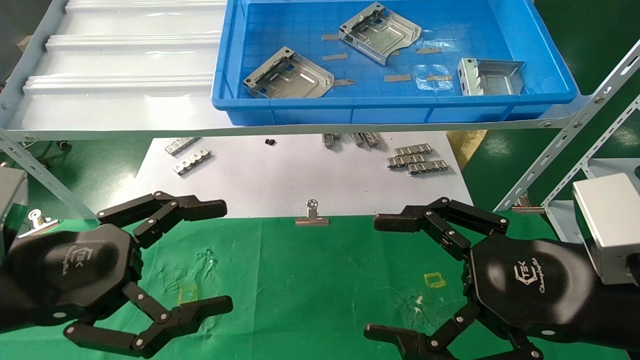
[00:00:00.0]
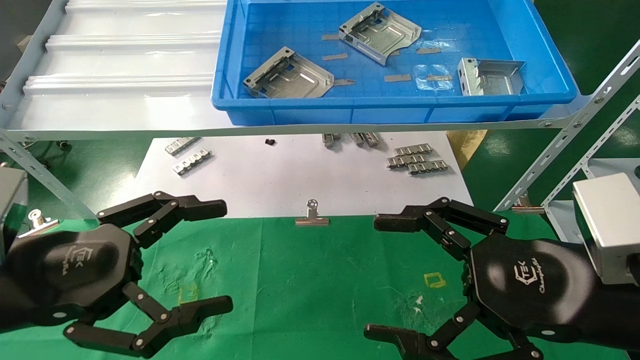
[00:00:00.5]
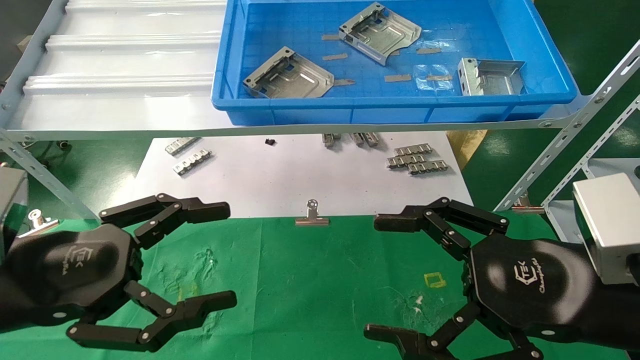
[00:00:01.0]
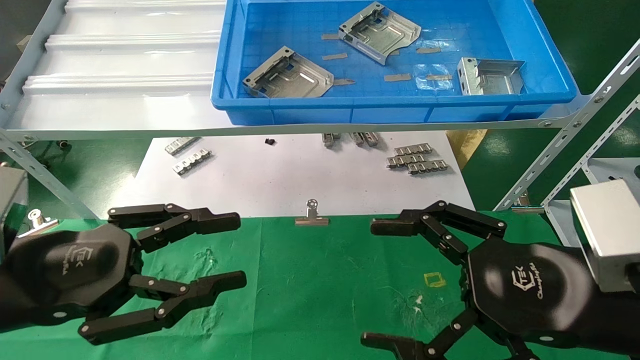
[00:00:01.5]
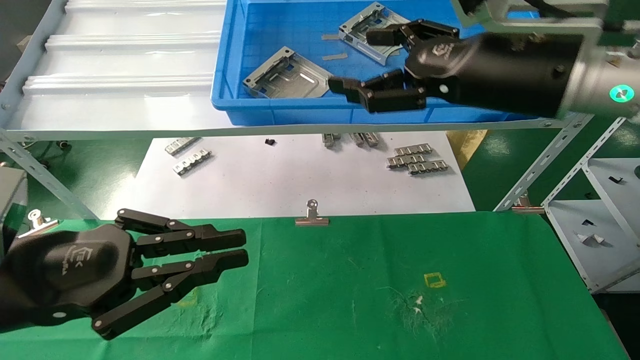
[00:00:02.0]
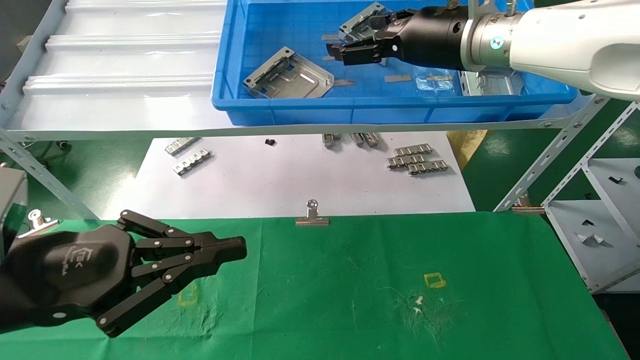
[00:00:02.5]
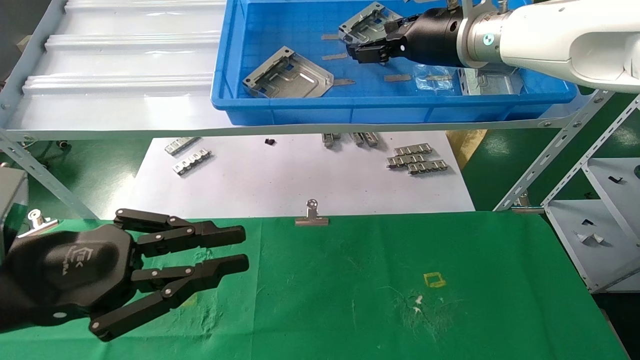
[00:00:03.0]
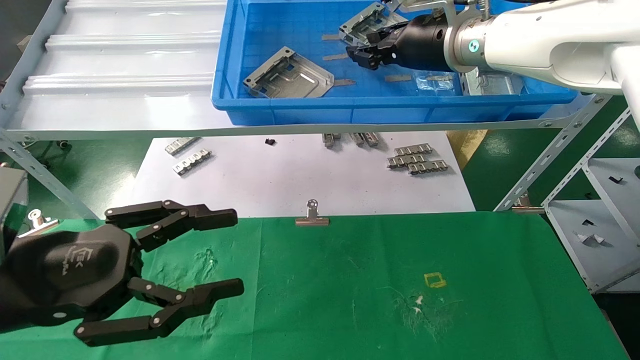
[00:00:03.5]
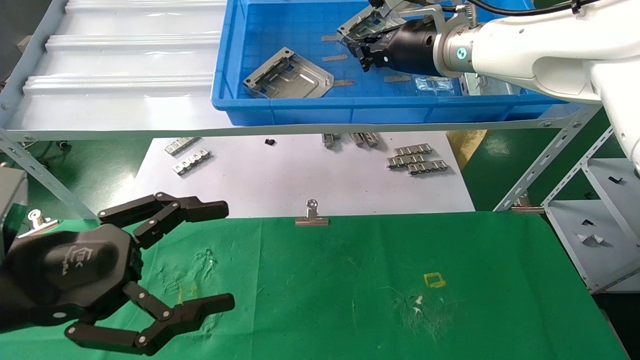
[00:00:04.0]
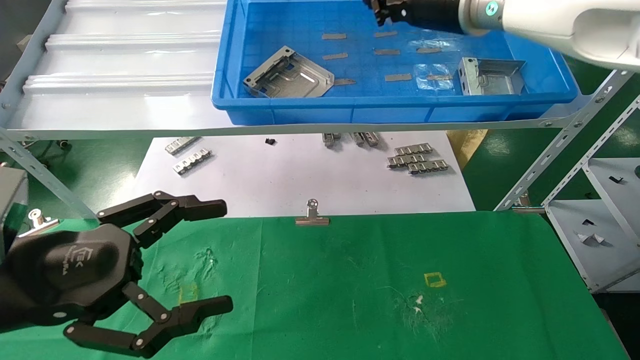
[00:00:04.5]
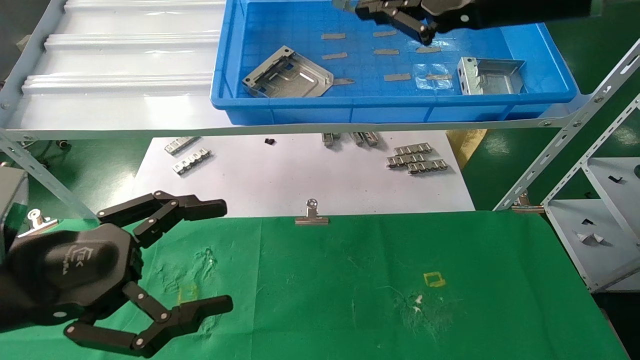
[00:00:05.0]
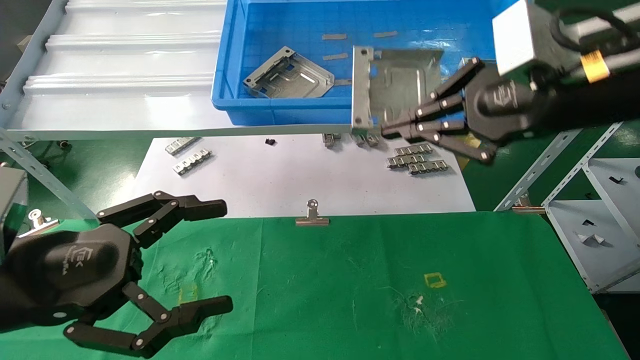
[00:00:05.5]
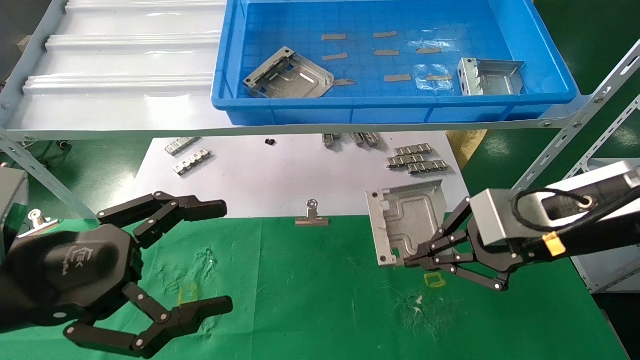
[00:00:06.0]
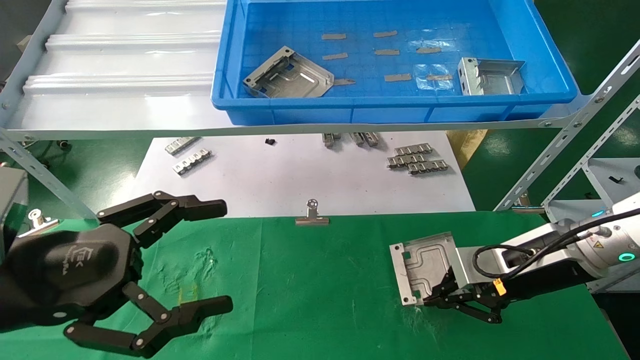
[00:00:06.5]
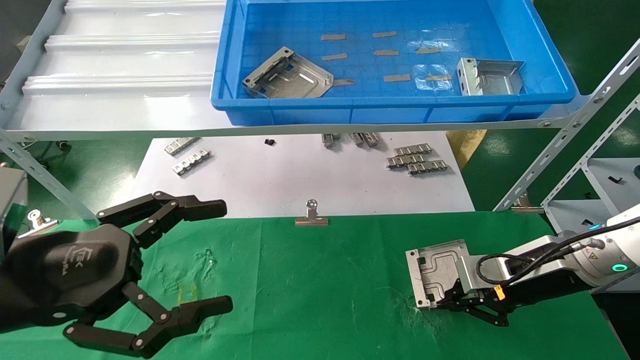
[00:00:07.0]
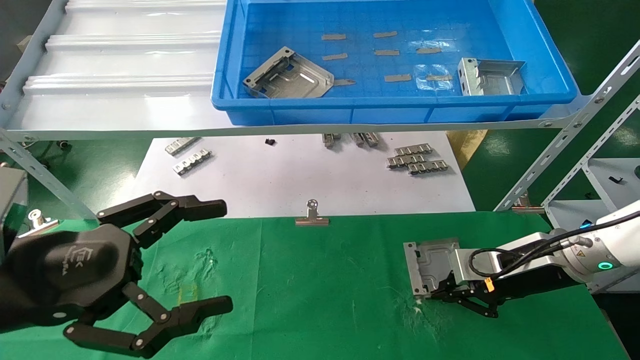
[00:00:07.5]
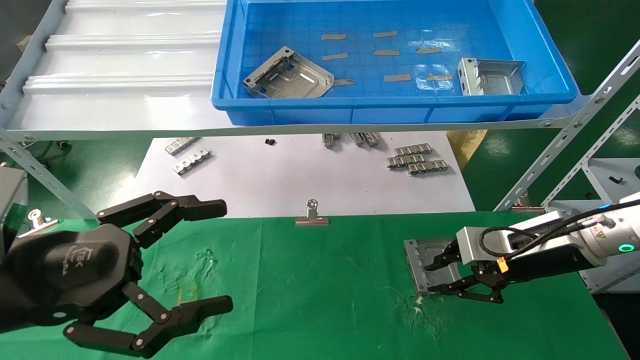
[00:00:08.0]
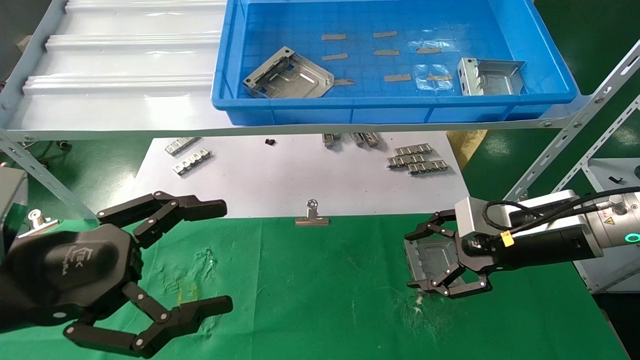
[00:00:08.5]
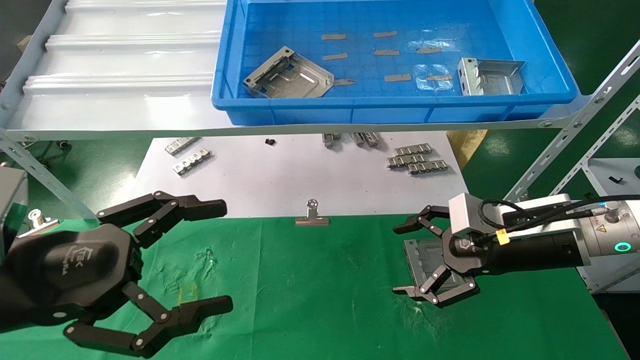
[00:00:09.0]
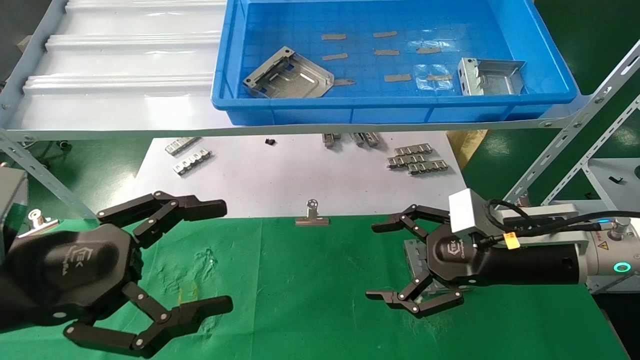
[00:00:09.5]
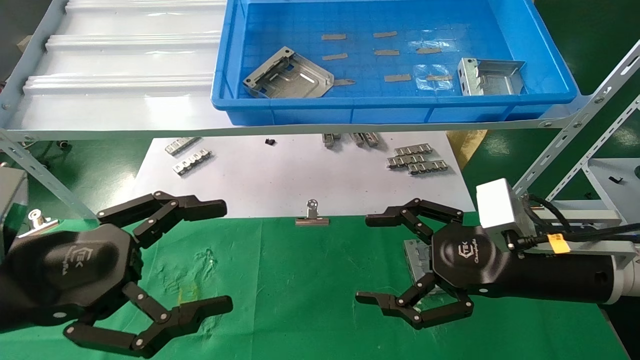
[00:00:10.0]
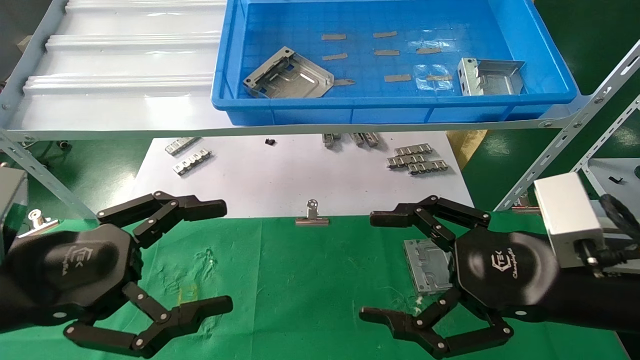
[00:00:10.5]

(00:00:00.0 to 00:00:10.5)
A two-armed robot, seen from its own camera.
Task of the whole recording: use the mechanical arm to pick up the parts and place them on the table.
Step, 00:00:02.0 - 00:00:04.0: Pick up the hard drive bracket from the feeding area.
Step, 00:00:04.5 - 00:00:07.5: Place the hard drive bracket into the box.
00:00:00.0 - 00:00:02.0: The right gripper goes some 20 cm upward and forward; the left gripper closes up.
00:00:02.0 - 00:00:04.0: The left gripper opens its fingers. The right gripper is displaced forward and to the left by some 15 cm, and closes up.
00:00:04.0 - 00:00:06.5: The right gripper is displaced downward, to the right and backward by roughly 30 cm.
00:00:06.5 - 00:00:08.5: The right gripper opens.
00:00:08.5 - 00:00:10.5: The right gripper shifts roughly 10 cm backward, and opens its fingers.
